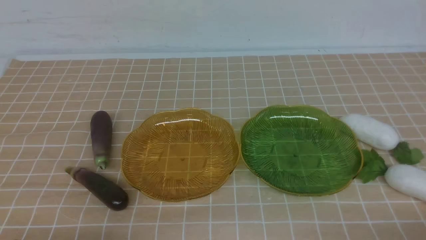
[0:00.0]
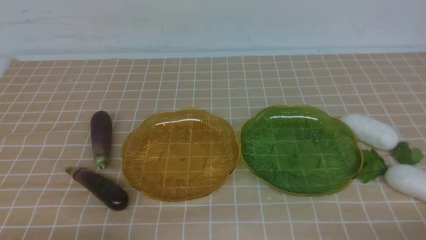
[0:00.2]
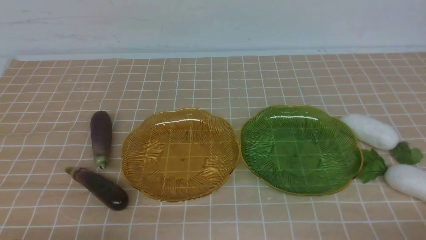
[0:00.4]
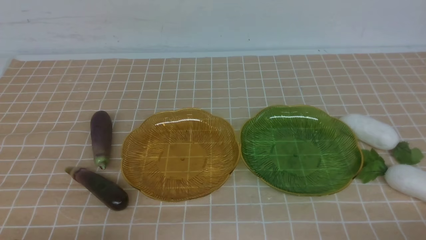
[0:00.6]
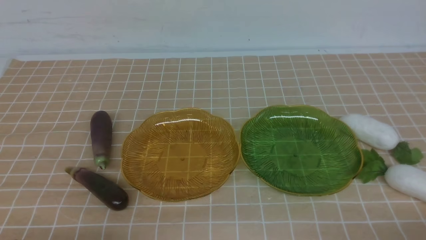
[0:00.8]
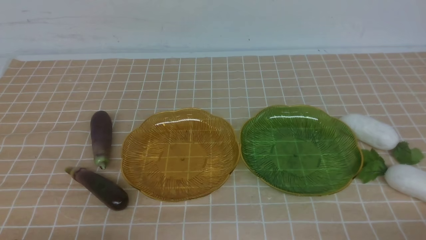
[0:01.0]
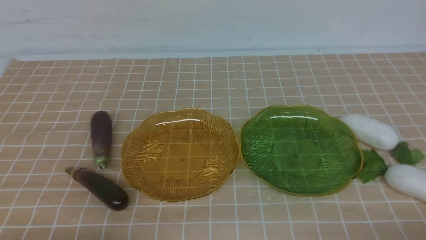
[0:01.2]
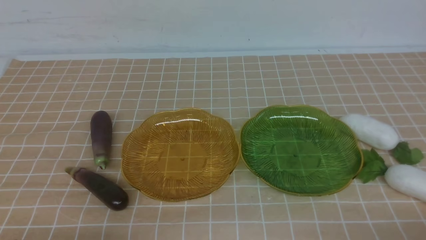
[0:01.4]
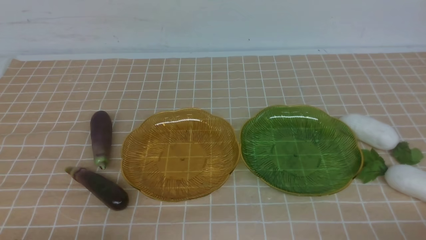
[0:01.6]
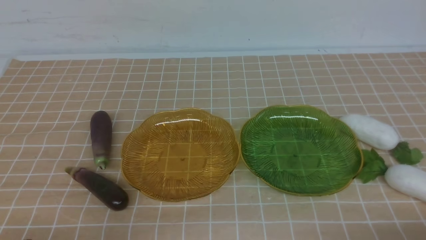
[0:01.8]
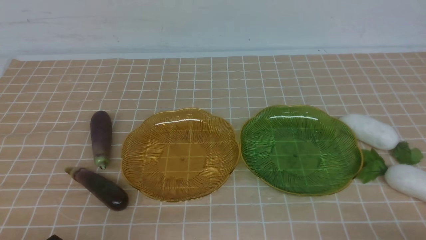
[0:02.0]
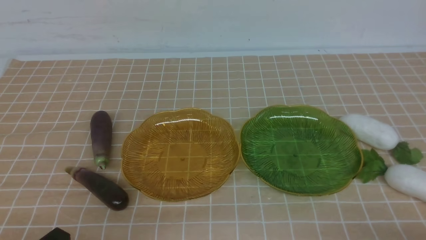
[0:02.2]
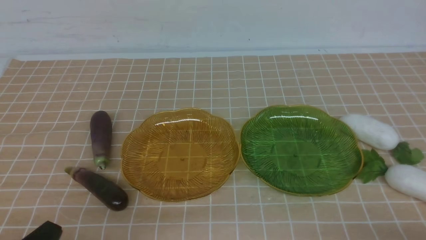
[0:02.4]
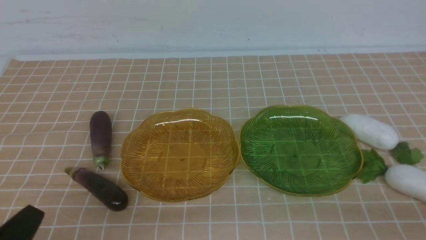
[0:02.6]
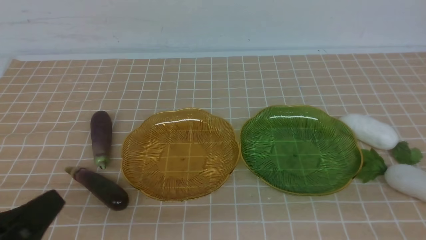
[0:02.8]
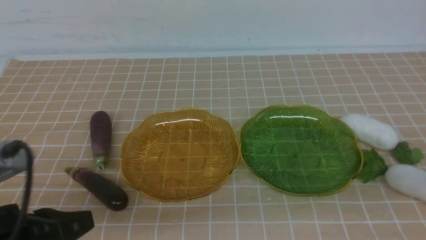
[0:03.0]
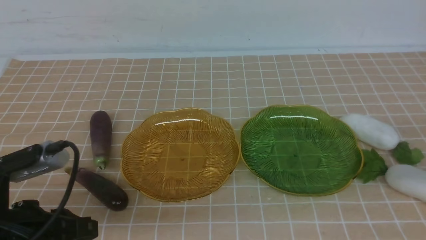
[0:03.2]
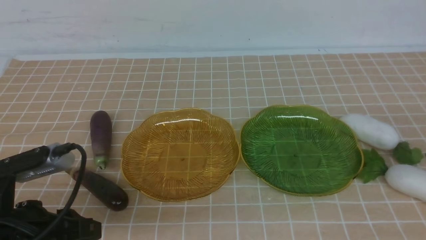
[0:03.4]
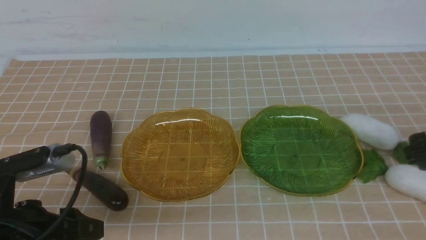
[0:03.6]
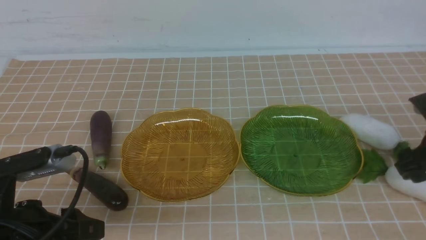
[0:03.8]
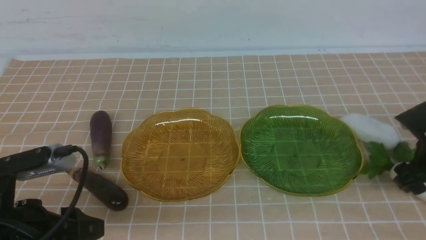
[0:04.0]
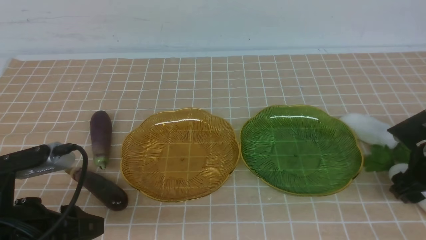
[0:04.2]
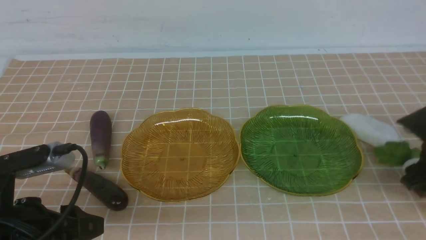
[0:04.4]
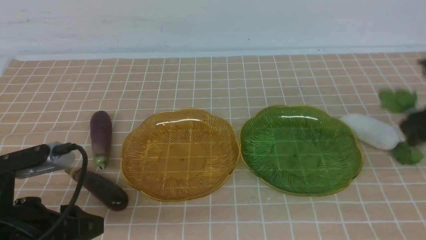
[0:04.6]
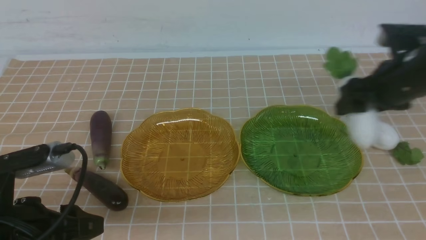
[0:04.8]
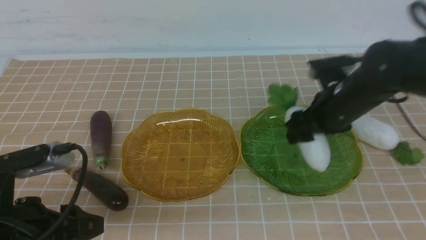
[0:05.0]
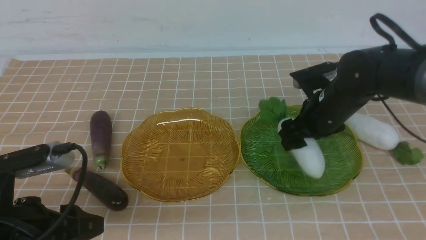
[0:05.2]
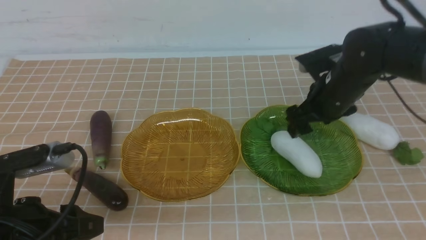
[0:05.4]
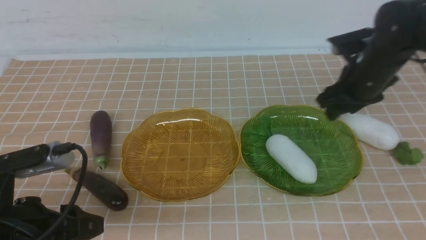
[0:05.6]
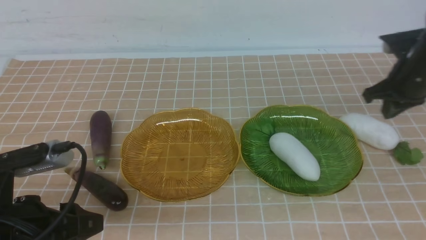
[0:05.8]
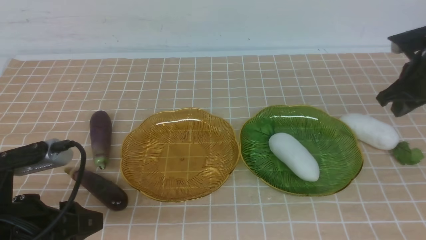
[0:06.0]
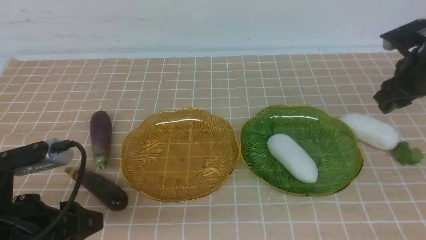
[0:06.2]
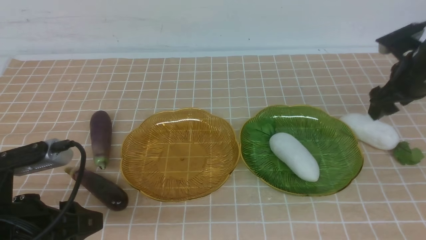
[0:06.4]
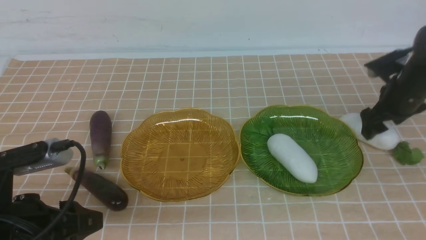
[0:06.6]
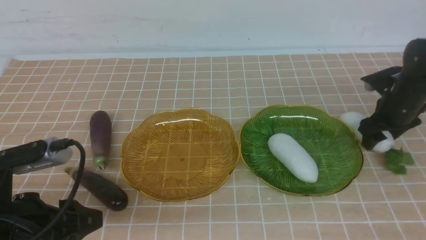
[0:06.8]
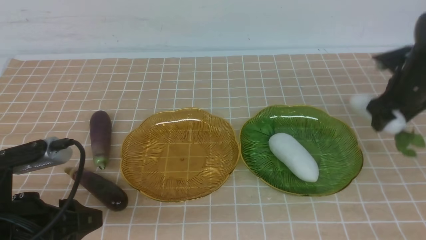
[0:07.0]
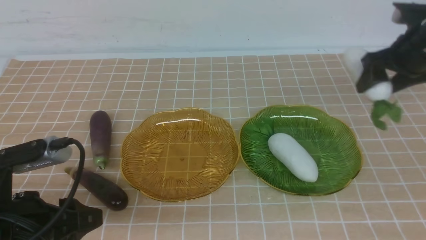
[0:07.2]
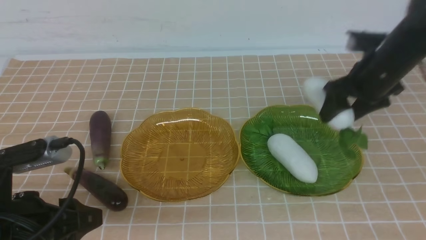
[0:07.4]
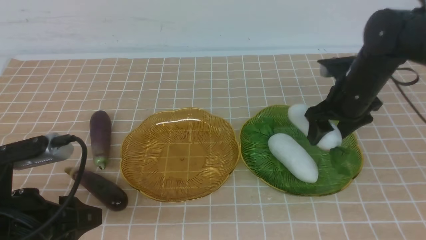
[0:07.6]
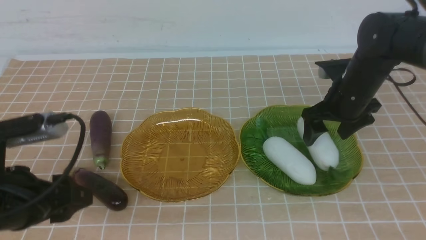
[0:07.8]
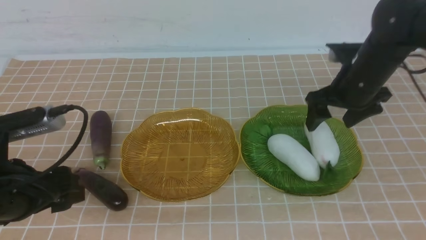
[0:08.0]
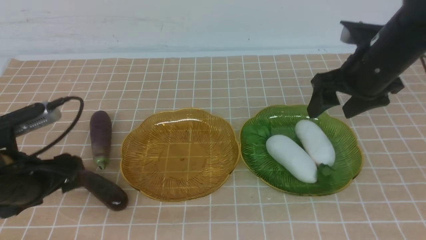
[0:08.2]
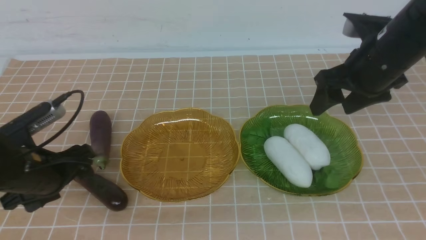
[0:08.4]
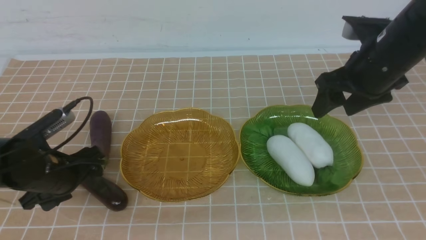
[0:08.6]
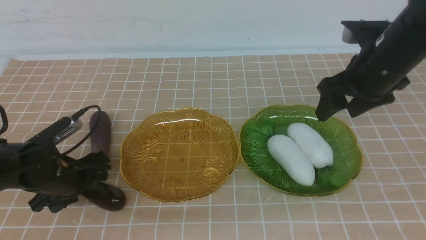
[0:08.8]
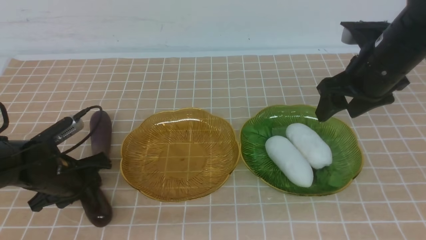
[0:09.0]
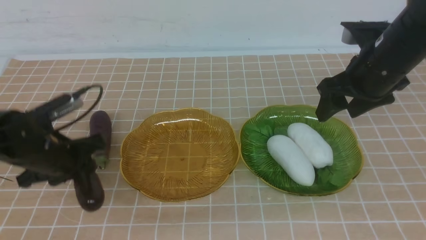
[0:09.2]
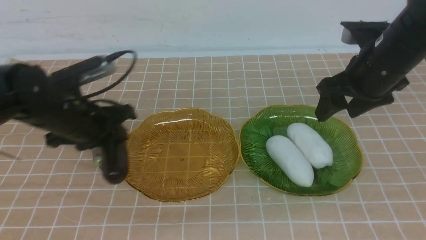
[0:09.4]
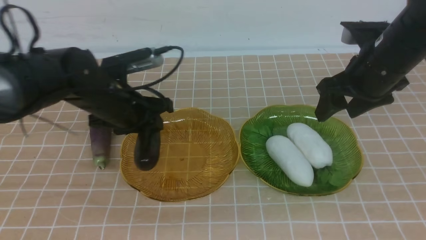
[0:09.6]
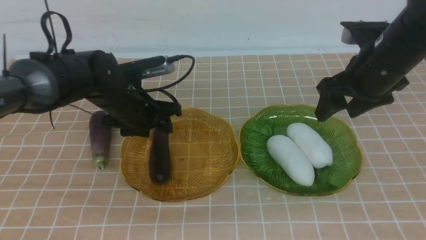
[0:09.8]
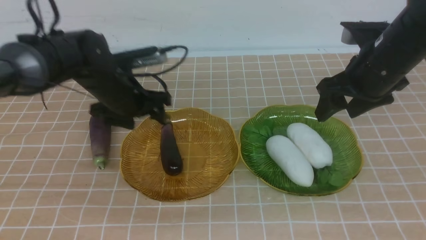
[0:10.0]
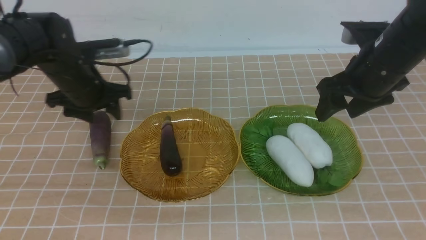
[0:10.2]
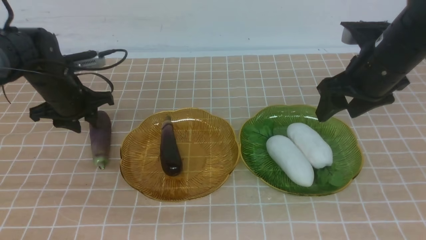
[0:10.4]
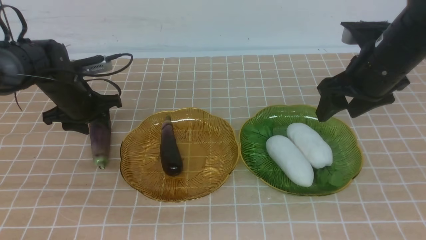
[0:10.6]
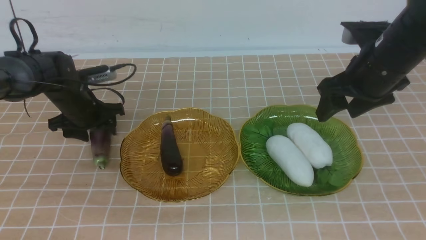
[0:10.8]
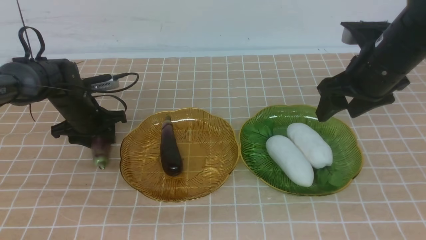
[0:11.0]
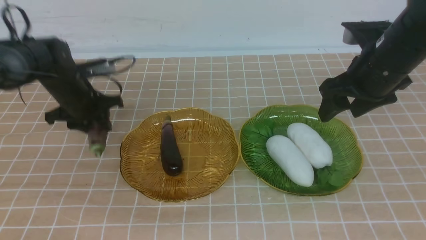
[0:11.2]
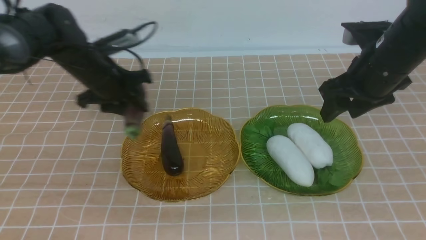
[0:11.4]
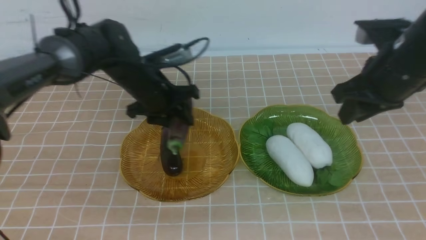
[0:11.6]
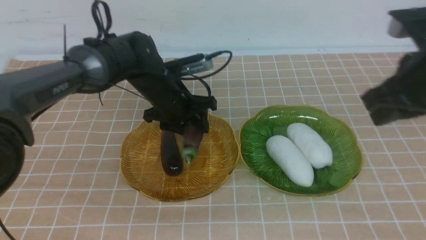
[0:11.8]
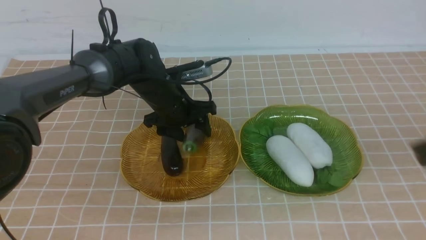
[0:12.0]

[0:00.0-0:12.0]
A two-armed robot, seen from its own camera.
Step, 0:00.0 to 0:08.0: use the right arm to grab a radish and put it into the right plate.
Step, 0:08.2 to 0:09.8: use the left arm to grab an eggplant and put it into the left plate.
0:00.0 to 0:01.6: Both grippers stay put.
0:01.6 to 0:03.0: The two grippers go some 15 cm upward and forward.
0:03.0 to 0:04.4: The left gripper opens; the right gripper heads forward and downward, covering some 20 cm, and opens its fingers.
0:04.4 to 0:06.0: The right gripper shifts approximately 10 cm forward, goes to the left and returns, about 15 cm each way, and closes up.
0:06.0 to 0:07.6: The right gripper goes about 10 cm to the left, and opens up.
0:07.6 to 0:09.0: The left gripper travels forward and downward by about 15 cm. Meanwhile the right gripper travels upward by some 5 cm.
0:09.0 to 0:10.4: The left gripper is displaced forward by about 10 cm.
0:10.4 to 0:12.0: The right gripper goes some 20 cm backward, and closes its fingers. The left gripper travels to the right by about 15 cm.

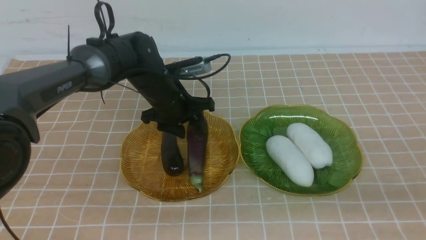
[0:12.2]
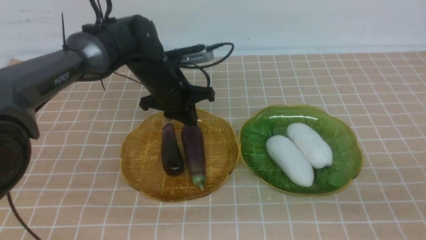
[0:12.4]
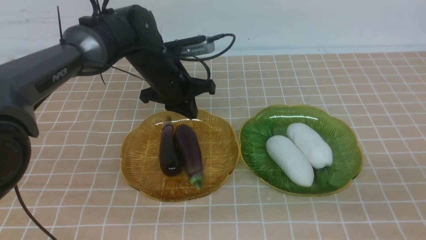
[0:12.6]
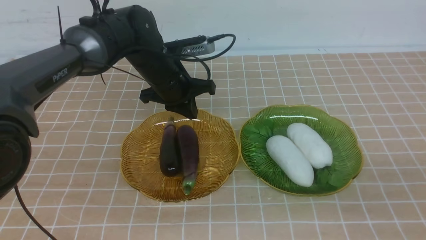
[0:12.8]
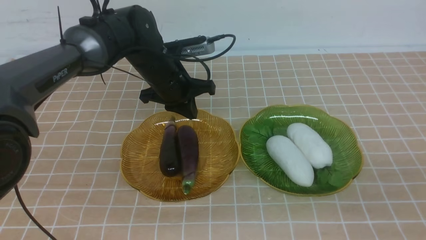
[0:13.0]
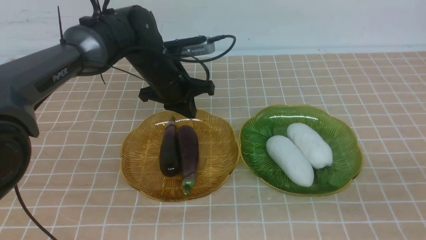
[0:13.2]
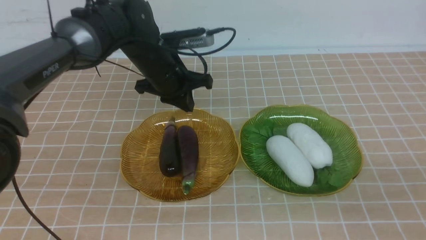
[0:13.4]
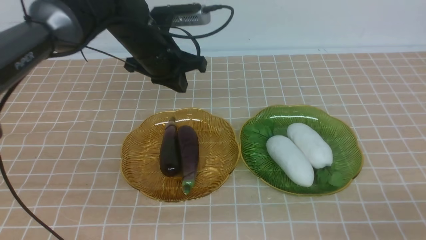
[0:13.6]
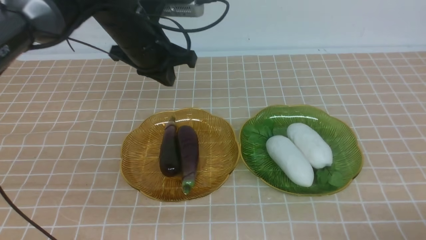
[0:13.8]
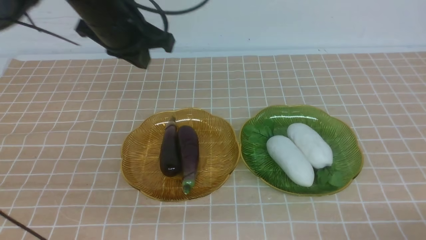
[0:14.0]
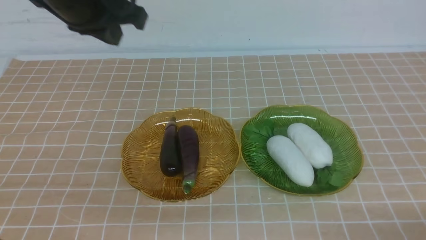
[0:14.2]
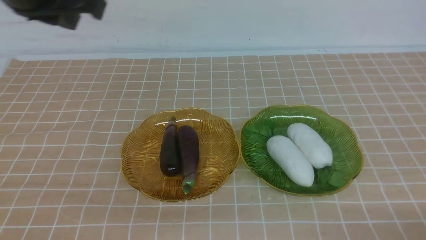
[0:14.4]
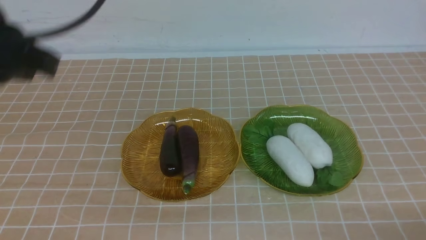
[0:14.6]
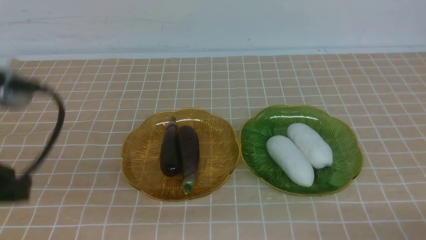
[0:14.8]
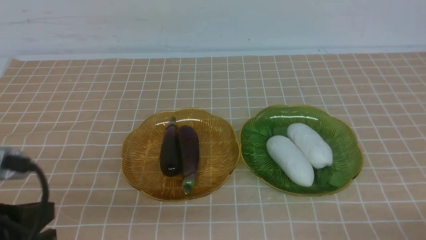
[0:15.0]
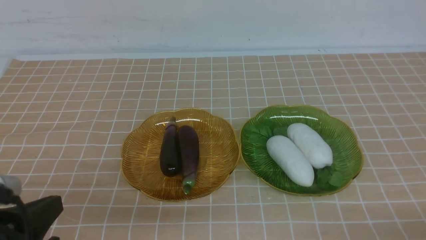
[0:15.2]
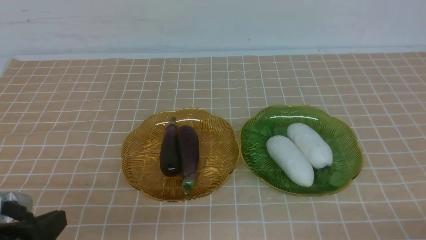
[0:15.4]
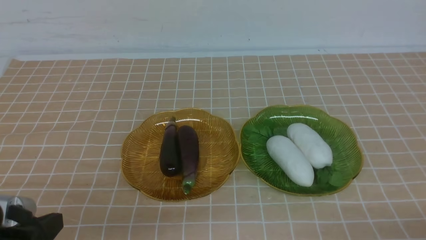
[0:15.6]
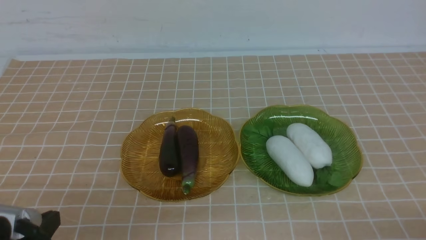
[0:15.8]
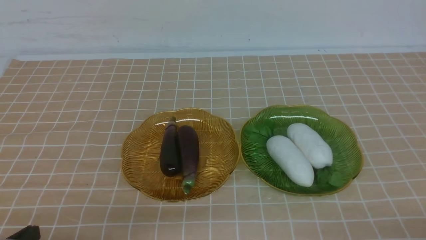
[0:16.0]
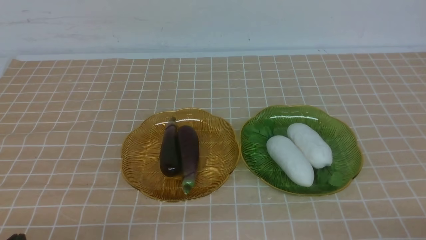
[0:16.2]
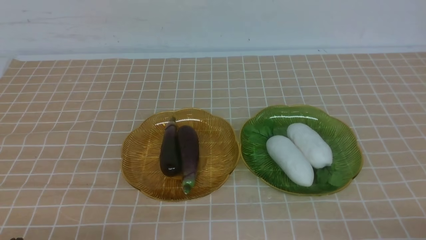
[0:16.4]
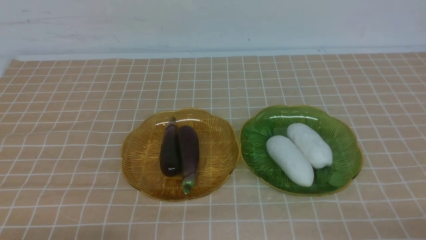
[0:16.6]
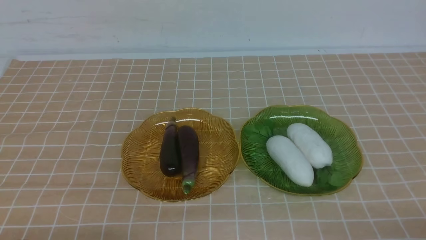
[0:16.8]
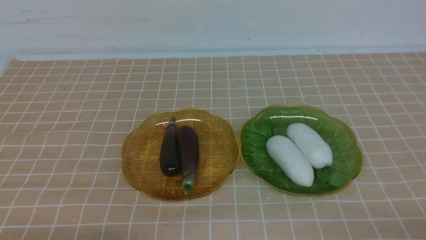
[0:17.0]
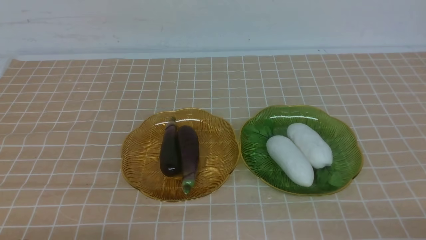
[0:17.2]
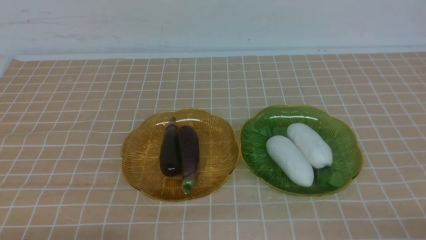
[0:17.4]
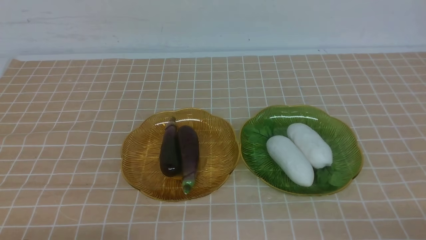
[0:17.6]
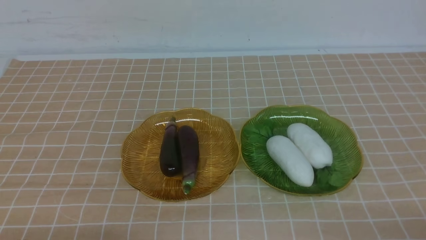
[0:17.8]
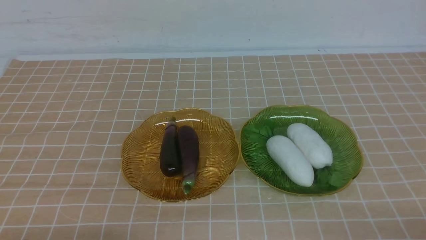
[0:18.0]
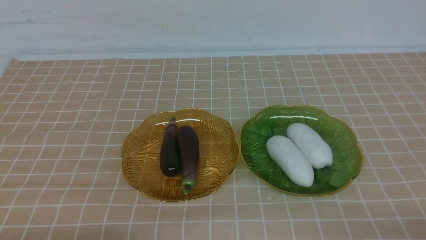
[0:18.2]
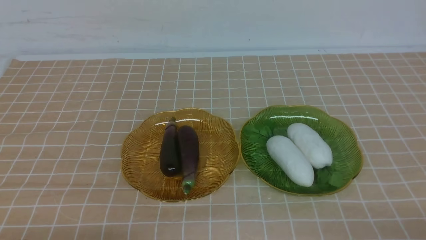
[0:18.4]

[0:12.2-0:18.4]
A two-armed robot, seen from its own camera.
0:12.2 to 0:13.8: The right gripper travels downward by approximately 10 cm; the left gripper goes approximately 10 cm upward, and closes up.
0:13.8 to 0:15.4: The left gripper is displaced backward by roughly 30 cm.
0:15.4 to 0:16.8: The left gripper shifts approximately 10 cm downward.
0:16.8 to 0:18.4: The two grippers keep their place.
